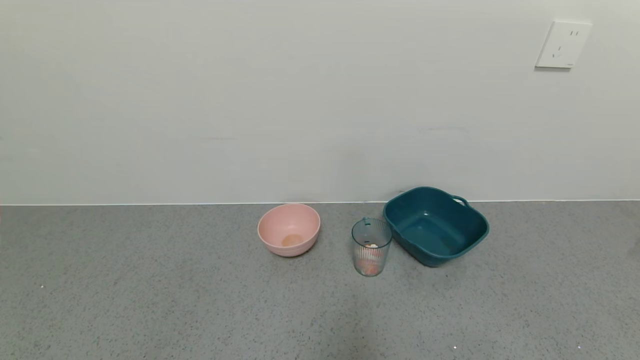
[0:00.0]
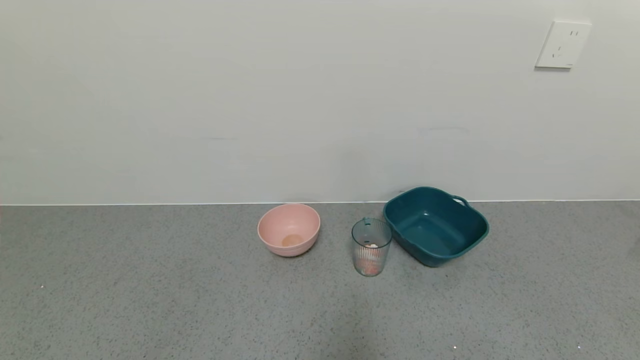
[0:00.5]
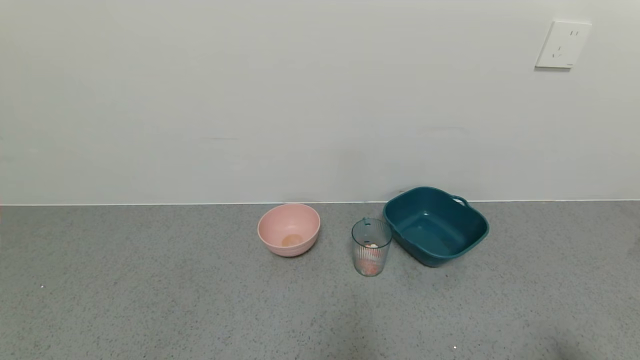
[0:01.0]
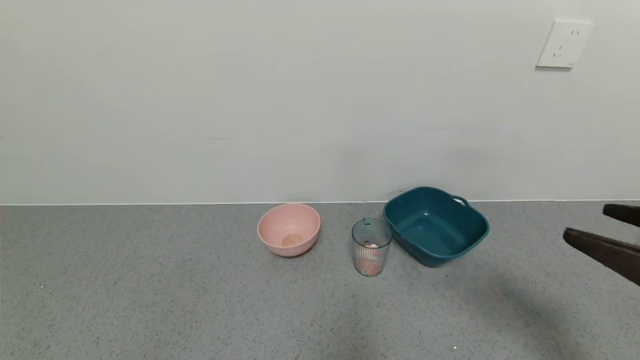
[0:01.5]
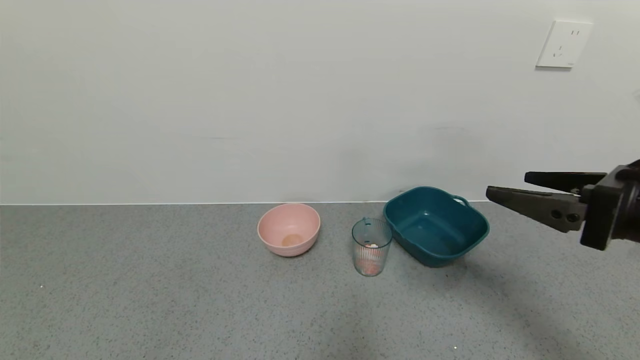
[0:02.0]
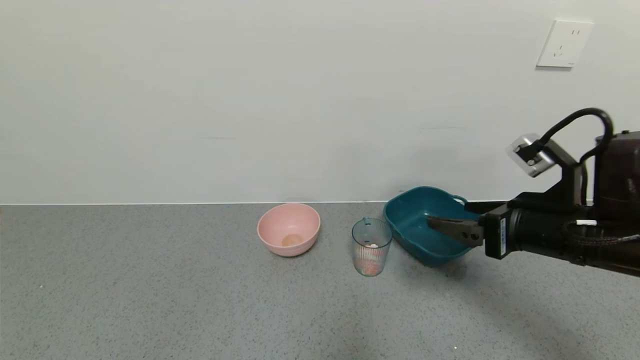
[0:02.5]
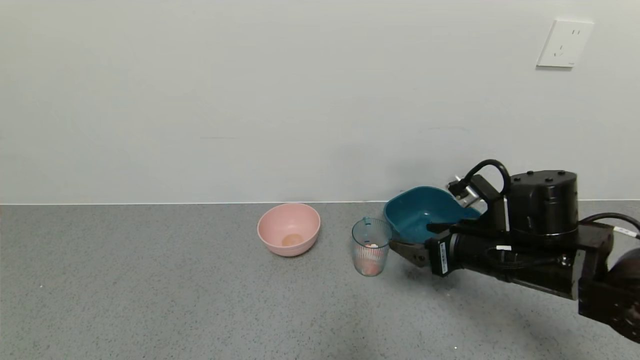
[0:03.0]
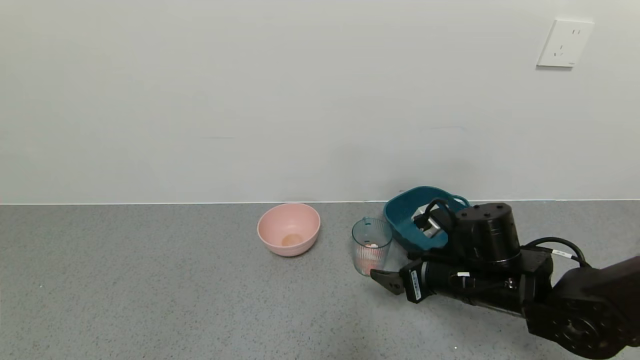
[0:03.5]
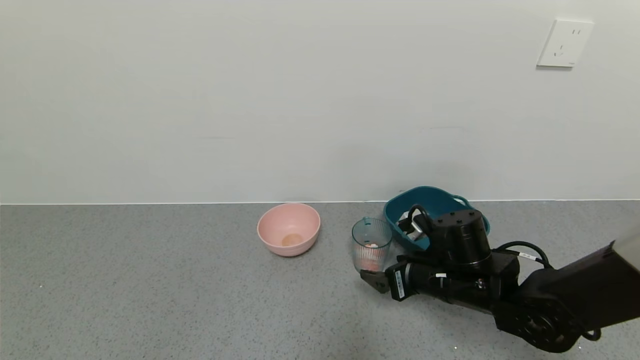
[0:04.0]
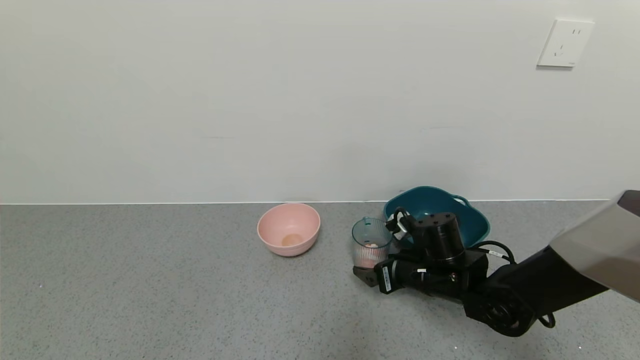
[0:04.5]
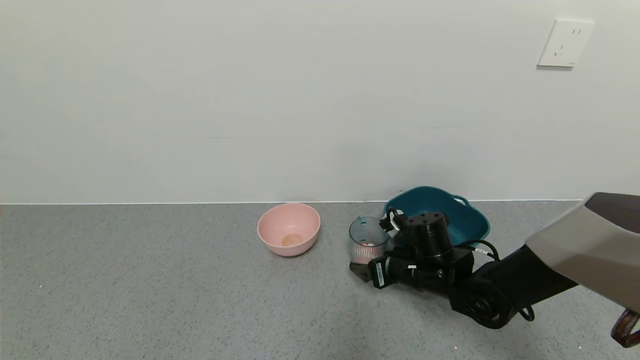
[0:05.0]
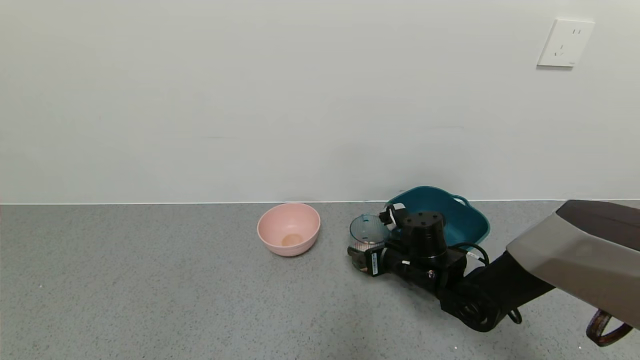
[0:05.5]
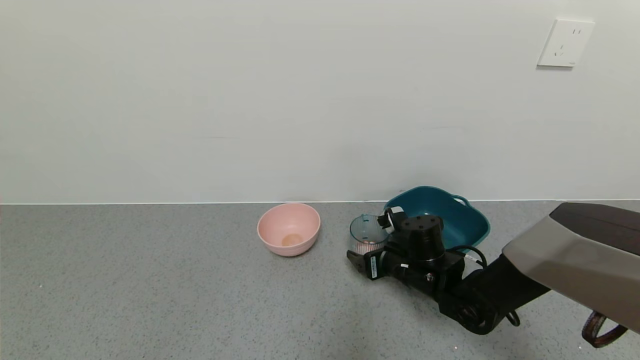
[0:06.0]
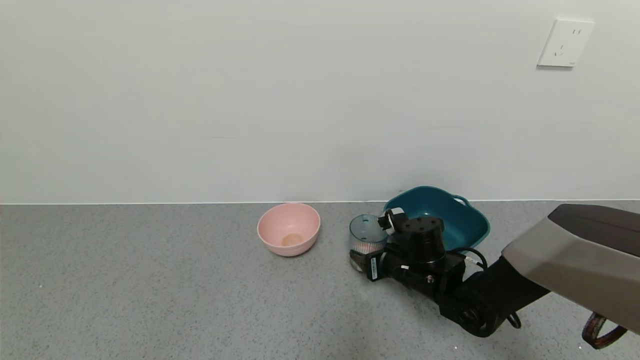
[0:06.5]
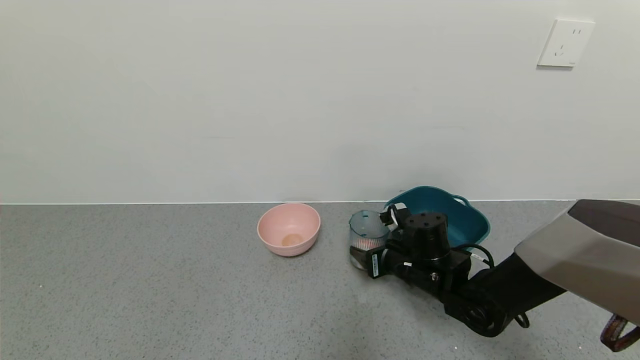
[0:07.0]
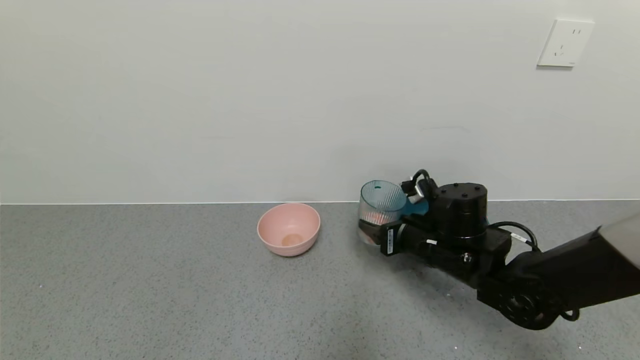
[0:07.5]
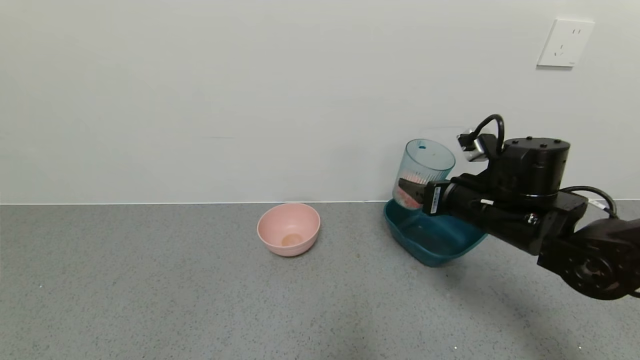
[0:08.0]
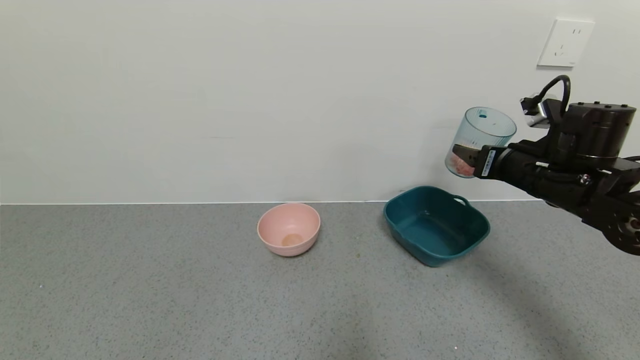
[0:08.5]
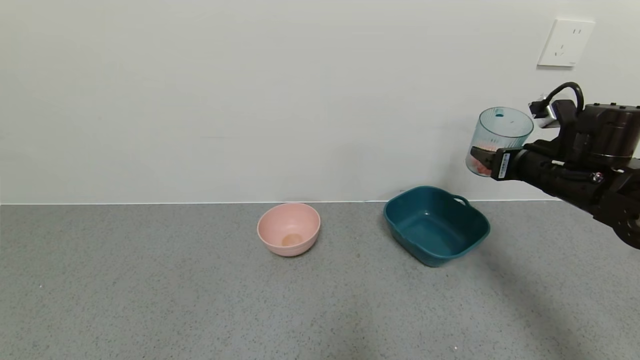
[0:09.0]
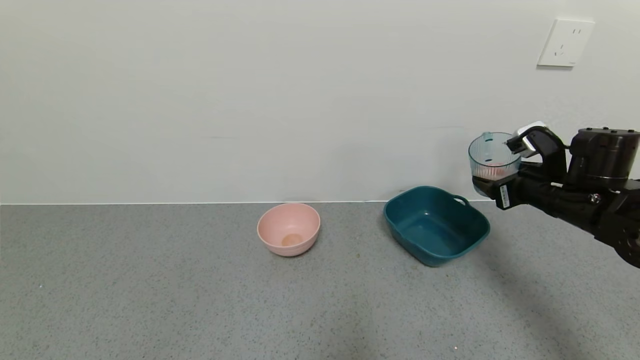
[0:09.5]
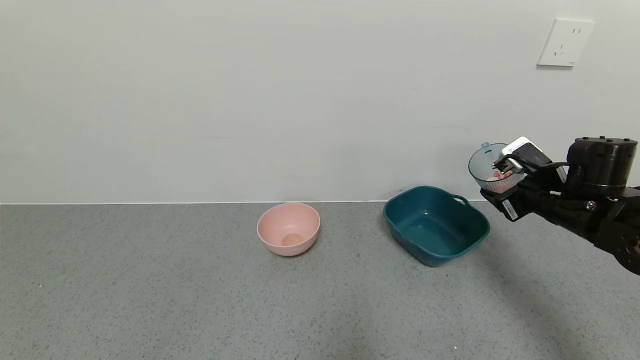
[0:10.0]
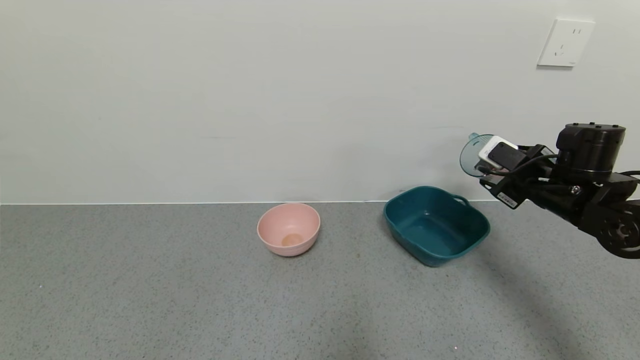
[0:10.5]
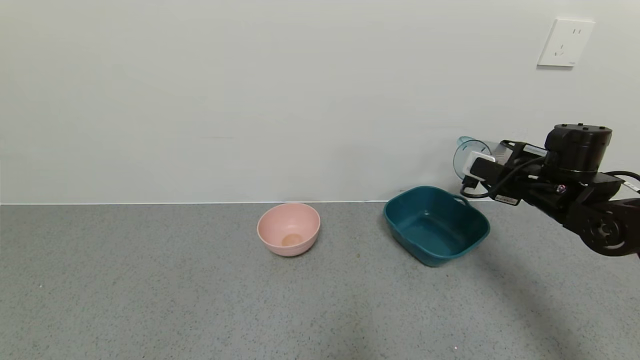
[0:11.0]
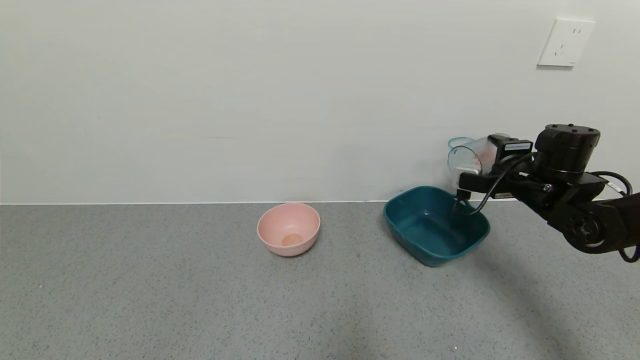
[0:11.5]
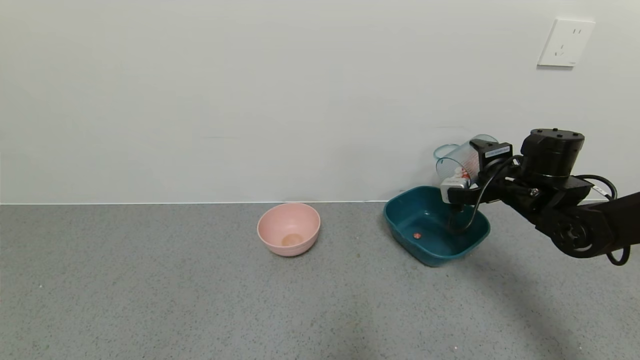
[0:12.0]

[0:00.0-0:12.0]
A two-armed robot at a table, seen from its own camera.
Task of the whole recording: use a gripper to pick up the cup and pour the solid into a bowl or tray.
Step, 0:00.0 to 0:06.0: Grasp the glass of shrimp with the right gripper.
0:00.0 to 0:02.0: The right gripper shifts roughly 30 cm forward and upward.
0:02.0 to 0:04.0: The right gripper moves downward, to the left and forward, some 25 cm.
0:04.0 to 0:06.0: The right gripper heads forward, covering roughly 5 cm.
0:06.0 to 0:08.0: The right gripper travels upward and to the right by approximately 15 cm, and closes.
0:08.0 to 0:10.0: The right gripper moves to the right, approximately 10 cm.
0:10.0 to 0:12.0: The right gripper ends up approximately 5 cm from where it was.

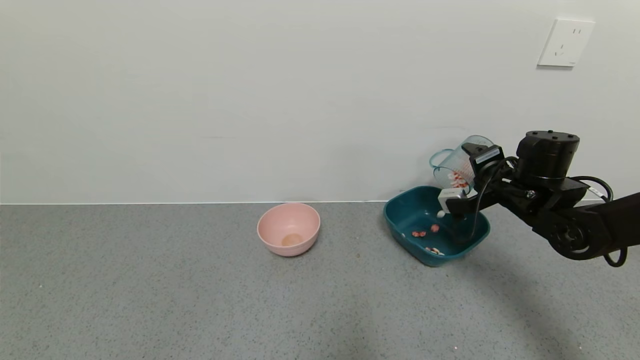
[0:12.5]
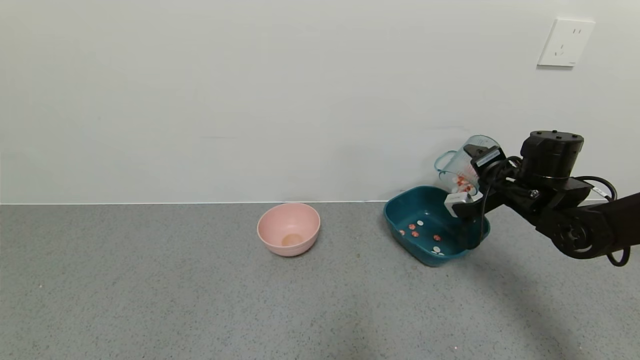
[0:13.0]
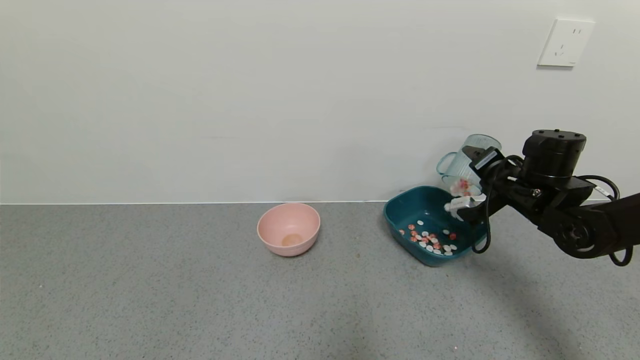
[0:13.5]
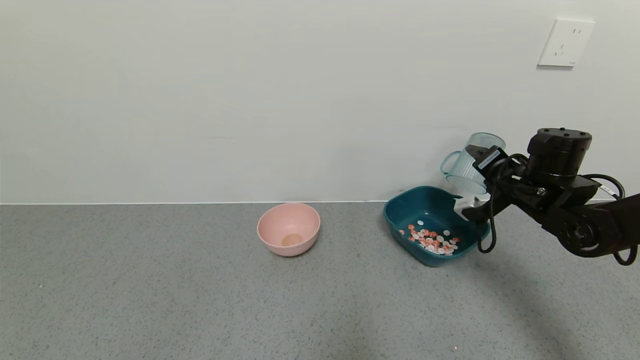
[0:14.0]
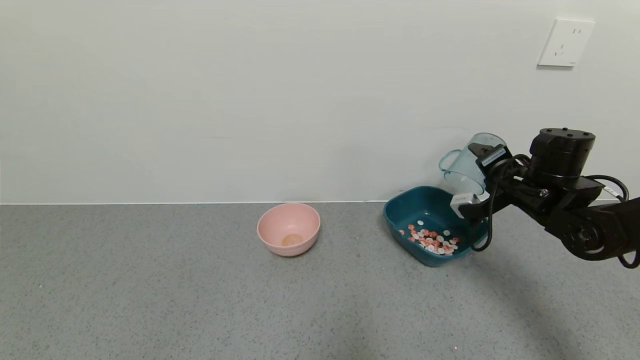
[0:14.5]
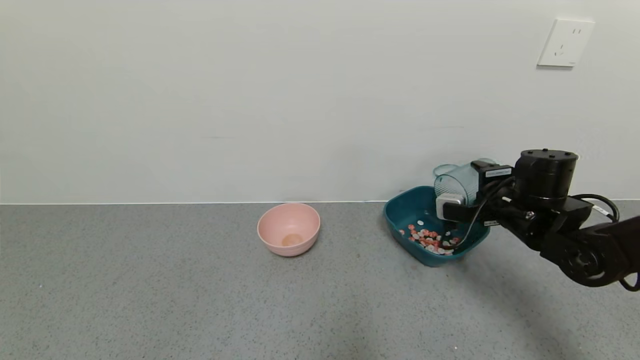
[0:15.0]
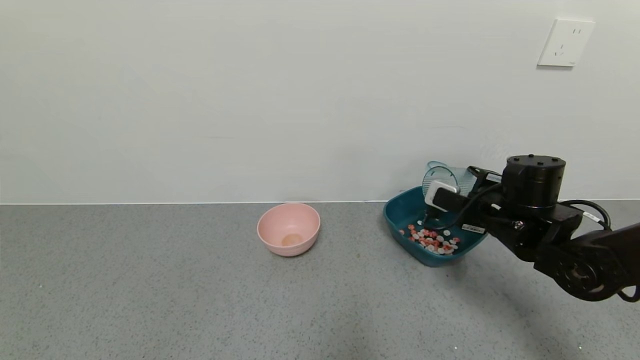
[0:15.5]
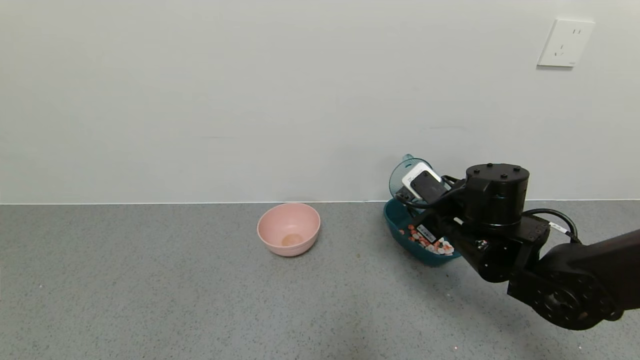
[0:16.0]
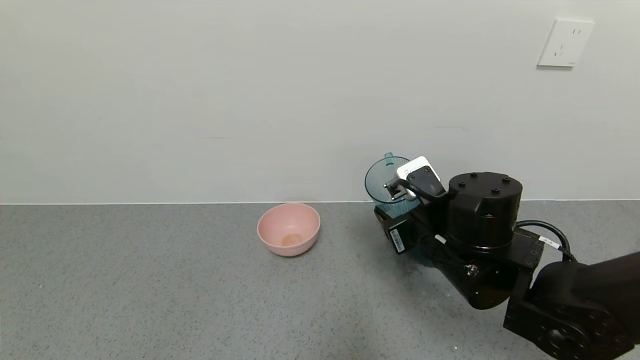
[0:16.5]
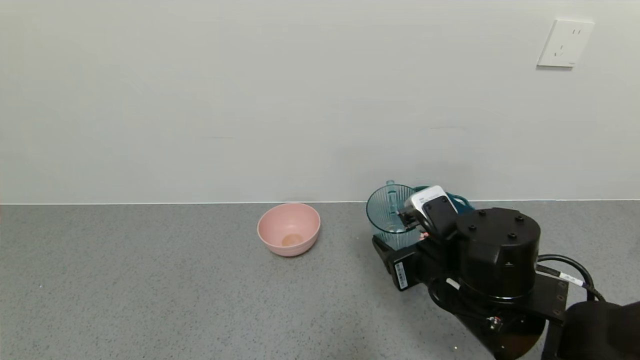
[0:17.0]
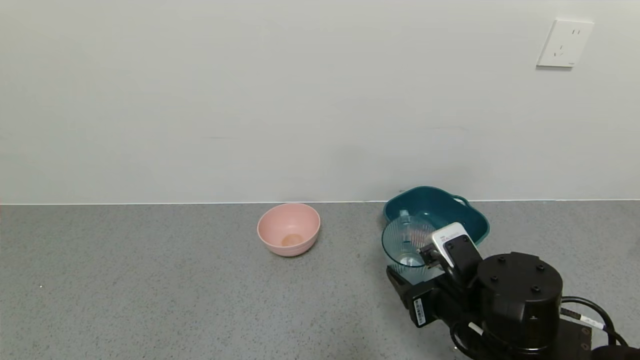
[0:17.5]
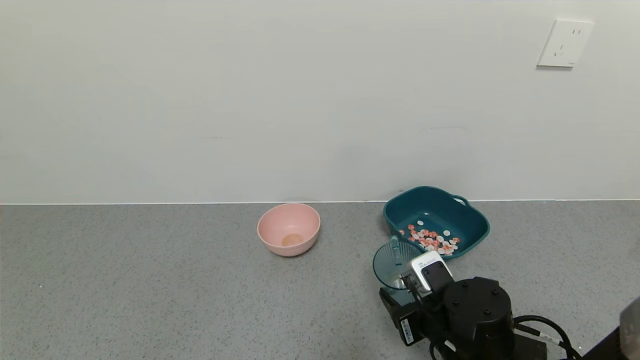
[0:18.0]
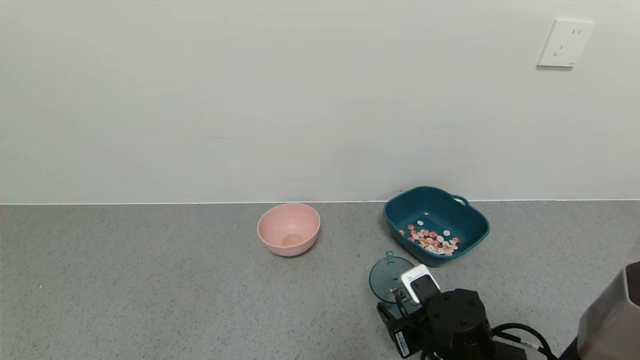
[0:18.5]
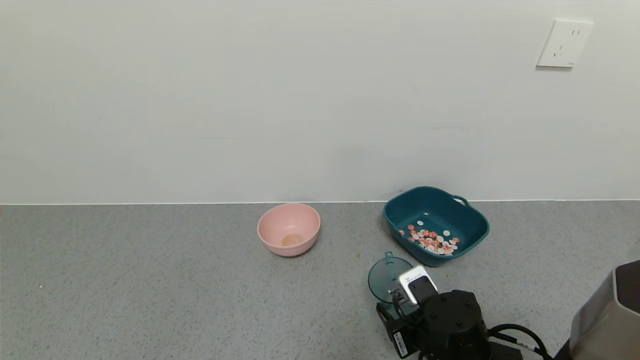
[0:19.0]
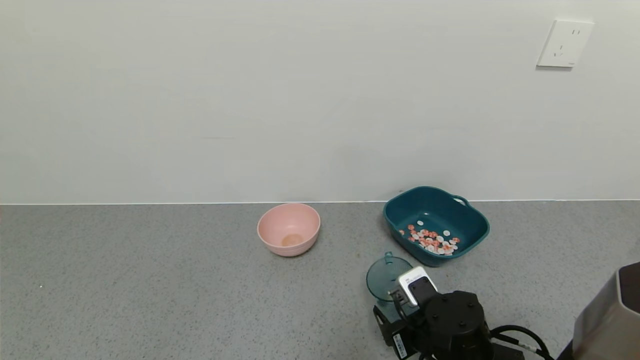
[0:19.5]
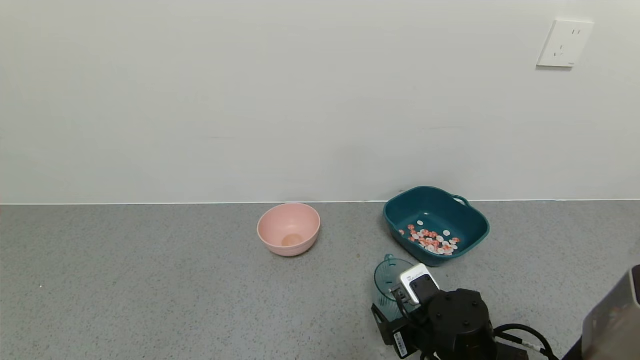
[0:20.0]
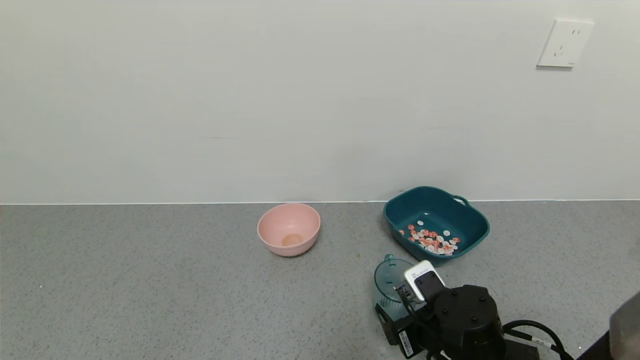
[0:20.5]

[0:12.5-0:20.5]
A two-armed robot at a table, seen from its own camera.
Task of the whole recording: use a gripper to pick up the cup and pour the solid into a bowl or tray.
Step, 0:12.5 to 0:14.5: Pour the shrimp beans into the green bowl with the right gripper.
Step, 0:15.0 to 0:20.0: Place the glass cup with the right gripper.
0:14.5 to 0:16.5: The right gripper heads to the left and backward, covering approximately 20 cm.
0:16.5 to 0:18.5: The right gripper moves downward, some 15 cm.
0:18.5 to 0:20.5: The right gripper opens.
